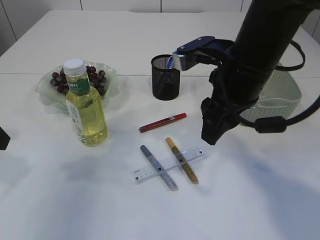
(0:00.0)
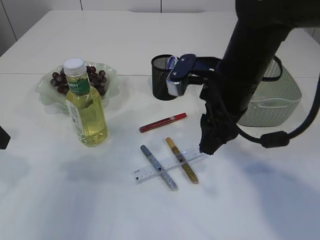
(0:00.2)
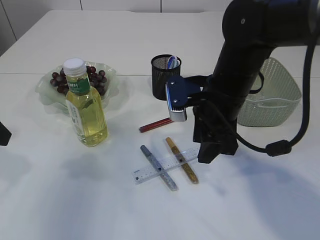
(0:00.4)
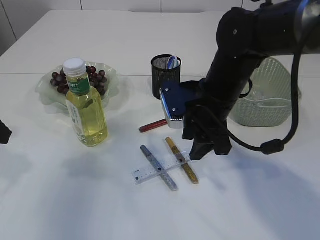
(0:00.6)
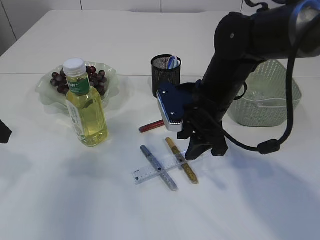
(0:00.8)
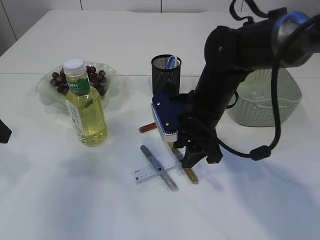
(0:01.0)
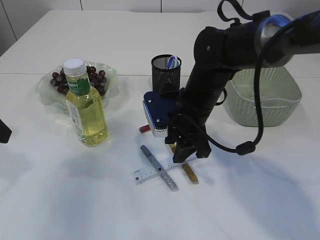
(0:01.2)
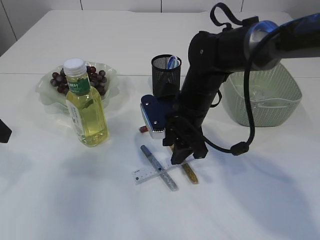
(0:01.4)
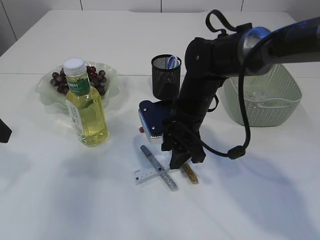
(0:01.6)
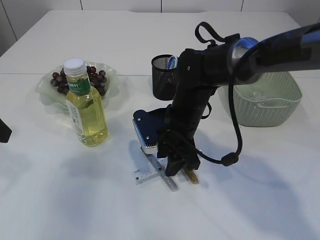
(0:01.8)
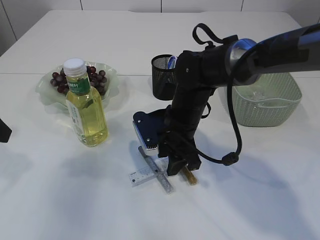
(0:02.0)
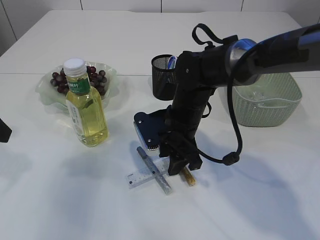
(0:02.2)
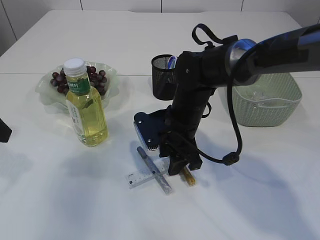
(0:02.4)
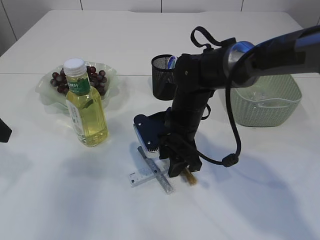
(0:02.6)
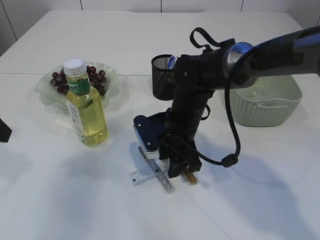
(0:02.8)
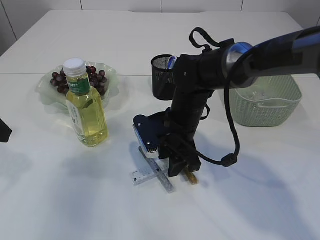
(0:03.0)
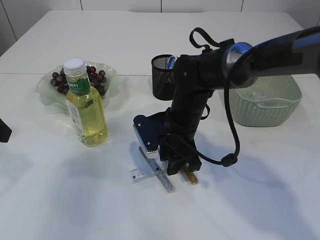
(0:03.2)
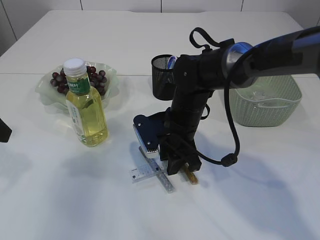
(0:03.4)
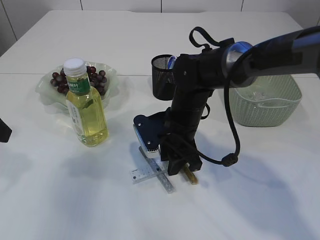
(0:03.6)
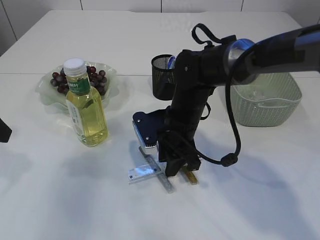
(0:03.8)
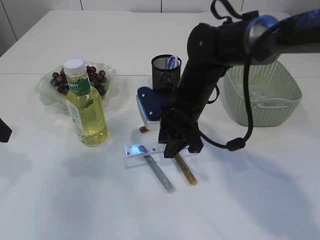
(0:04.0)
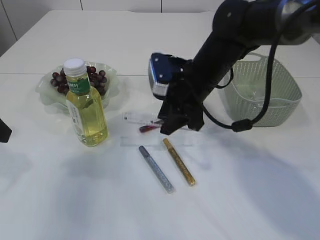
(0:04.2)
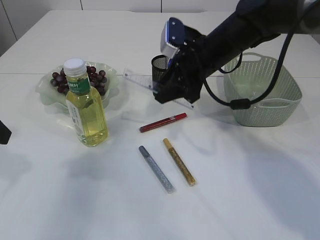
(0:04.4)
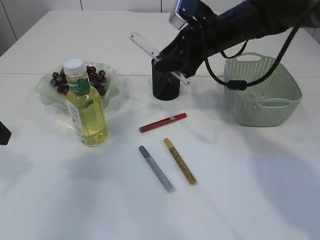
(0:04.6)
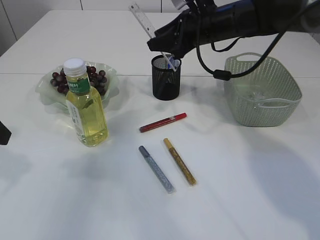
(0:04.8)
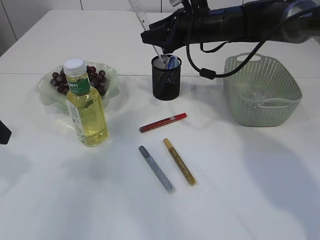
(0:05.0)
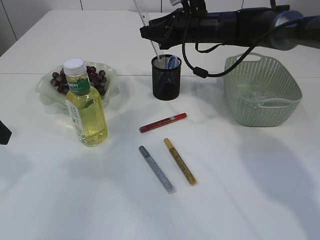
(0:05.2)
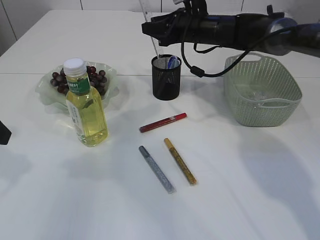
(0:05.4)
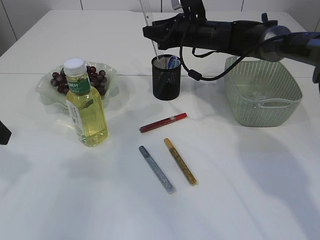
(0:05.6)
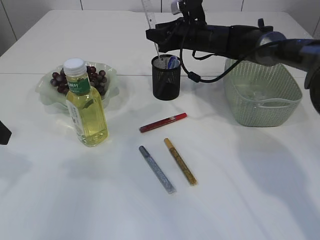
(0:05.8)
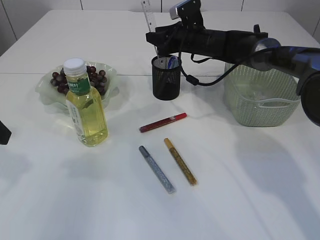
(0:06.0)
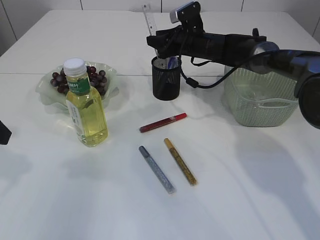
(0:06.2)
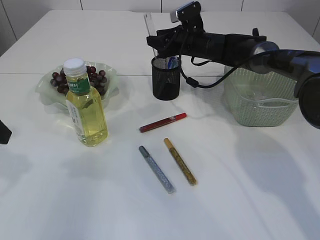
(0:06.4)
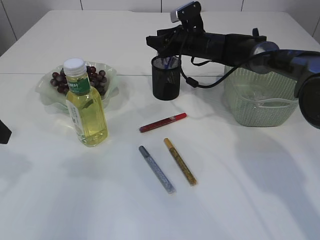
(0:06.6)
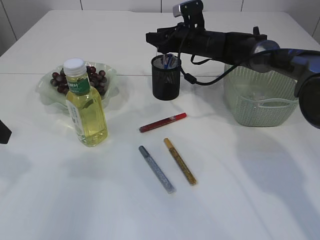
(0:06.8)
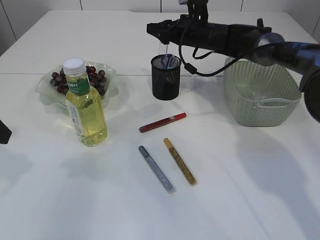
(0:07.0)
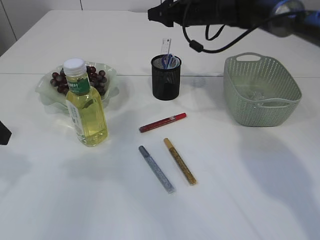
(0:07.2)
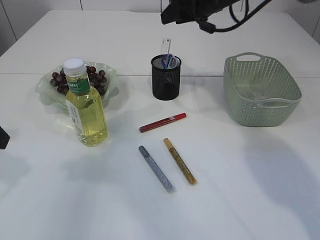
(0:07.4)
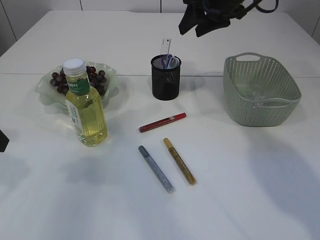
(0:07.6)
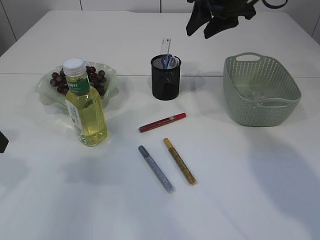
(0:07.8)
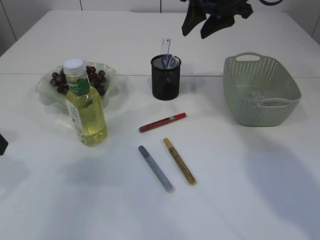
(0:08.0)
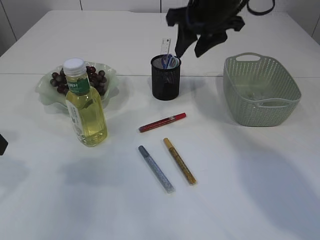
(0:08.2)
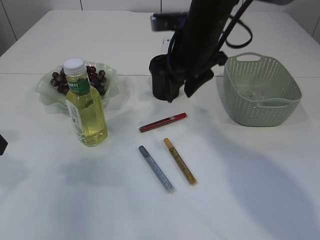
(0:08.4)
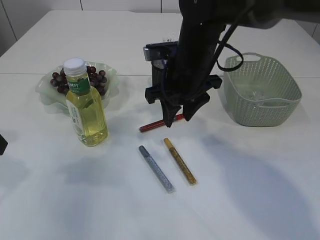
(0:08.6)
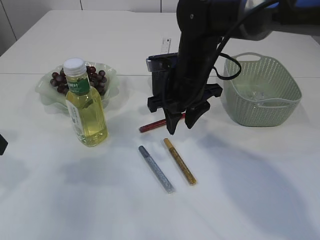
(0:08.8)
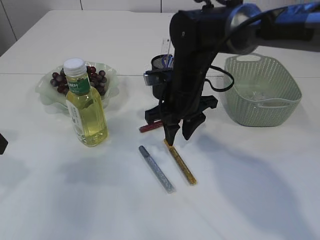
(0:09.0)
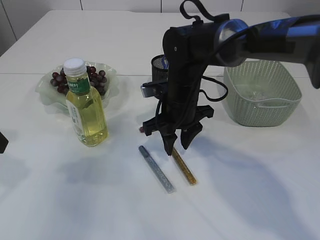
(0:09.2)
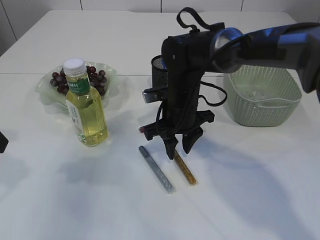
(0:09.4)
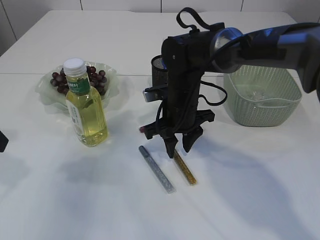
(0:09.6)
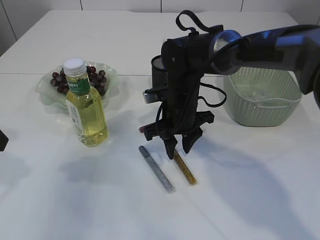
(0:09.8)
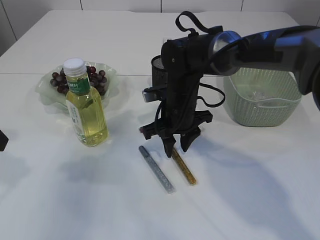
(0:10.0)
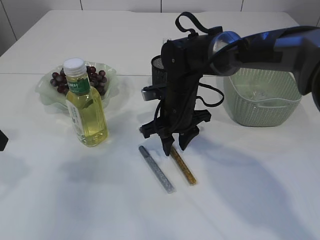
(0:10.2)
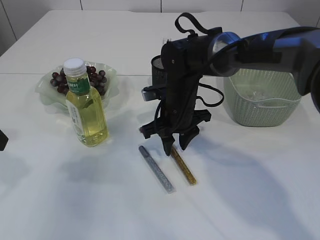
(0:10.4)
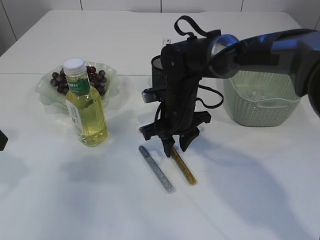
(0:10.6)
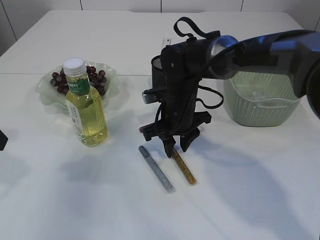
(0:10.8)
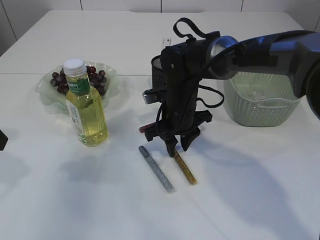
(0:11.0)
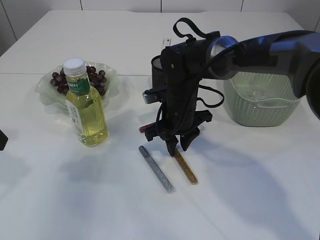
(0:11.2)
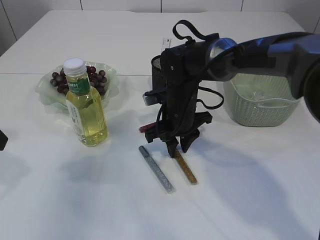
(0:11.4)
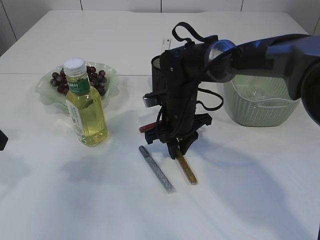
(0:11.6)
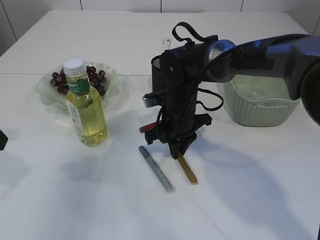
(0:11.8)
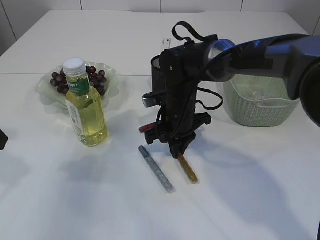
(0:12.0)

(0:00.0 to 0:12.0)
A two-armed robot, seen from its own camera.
Step, 0:00.0 - 0:04.0: pick up the ruler.
Step, 0:04.2 - 0:07.2: Place the ruler into the pen holder.
0:00.0 - 0:01.6: The right gripper moves downward, forward and to the left, approximately 15 cm.
0:01.6 - 0:03.0: The grippers stay close to where they were, moving slightly.
0:03.0 - 0:04.4: The right gripper travels upward and to the right by some 10 cm.
0:04.4 - 0:06.0: The right gripper goes some 15 cm forward.
0:06.0 - 0:07.6: The right gripper shifts about 15 cm upward and backward.
0:07.6 - 0:09.0: The right gripper travels downward, to the left and backward by approximately 20 cm.
0:09.0 - 0:10.4: The grippers stay close to where they were, moving slightly.
0:10.4 - 0:12.0: The right gripper closes up.

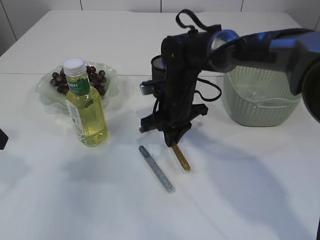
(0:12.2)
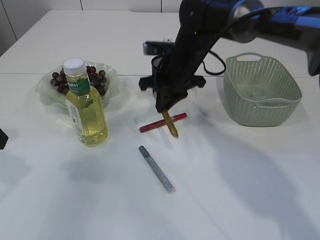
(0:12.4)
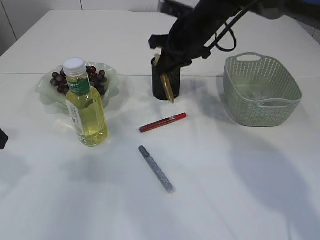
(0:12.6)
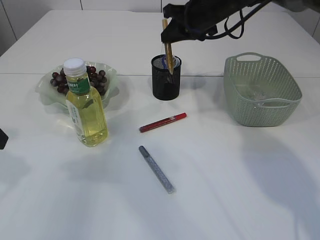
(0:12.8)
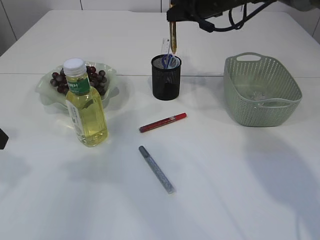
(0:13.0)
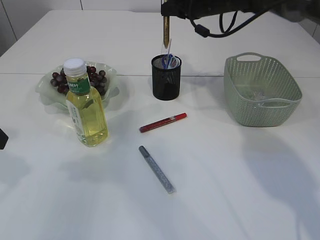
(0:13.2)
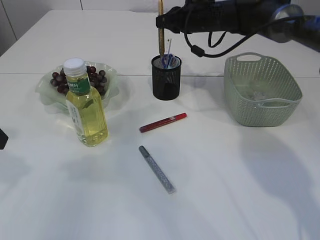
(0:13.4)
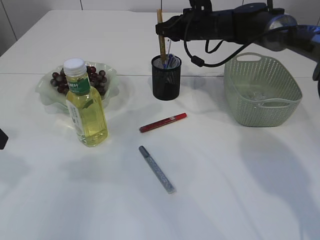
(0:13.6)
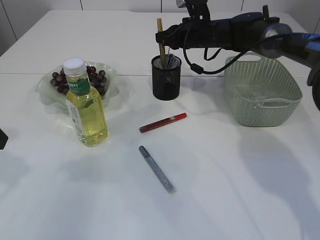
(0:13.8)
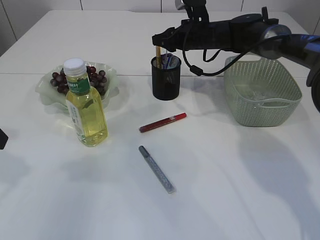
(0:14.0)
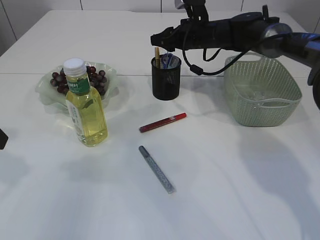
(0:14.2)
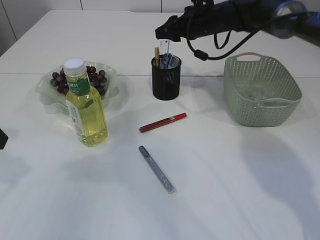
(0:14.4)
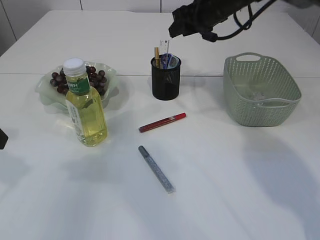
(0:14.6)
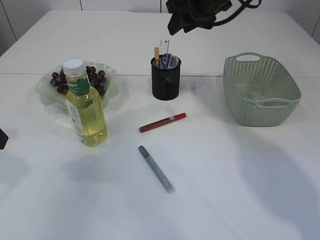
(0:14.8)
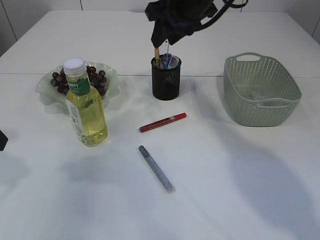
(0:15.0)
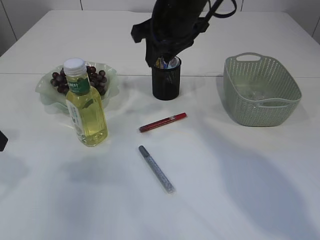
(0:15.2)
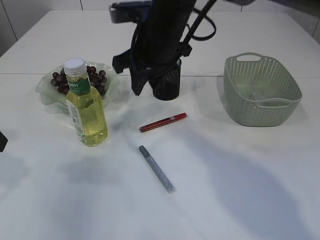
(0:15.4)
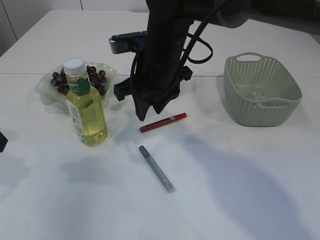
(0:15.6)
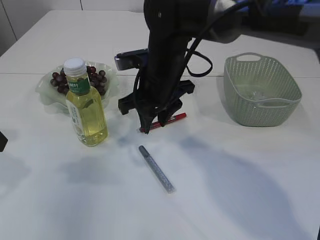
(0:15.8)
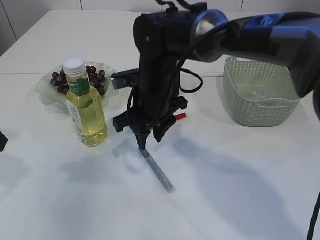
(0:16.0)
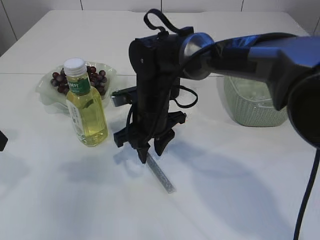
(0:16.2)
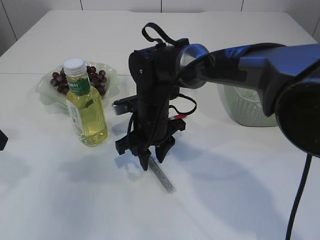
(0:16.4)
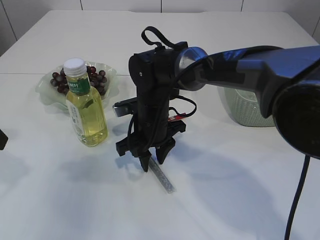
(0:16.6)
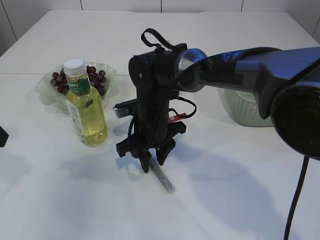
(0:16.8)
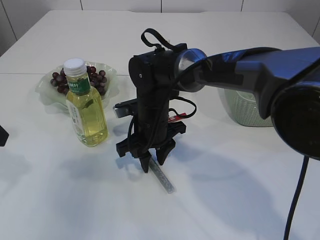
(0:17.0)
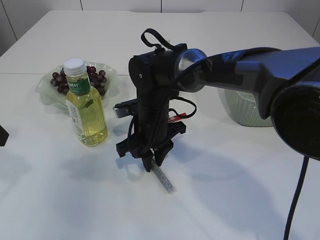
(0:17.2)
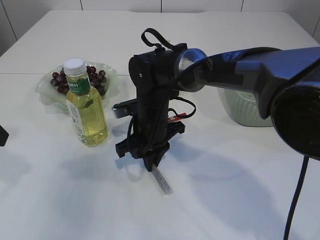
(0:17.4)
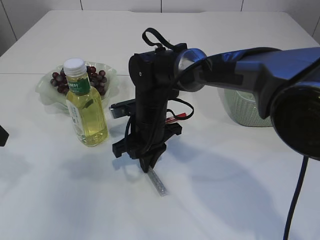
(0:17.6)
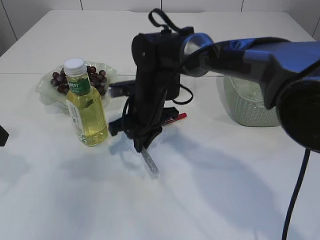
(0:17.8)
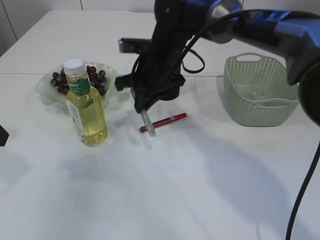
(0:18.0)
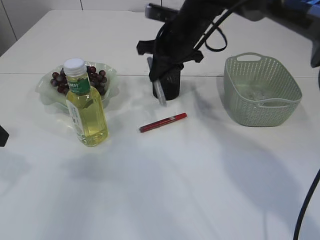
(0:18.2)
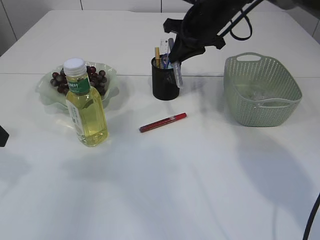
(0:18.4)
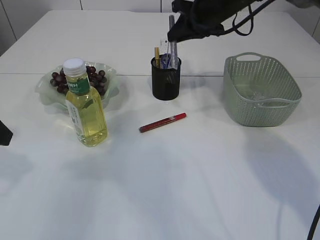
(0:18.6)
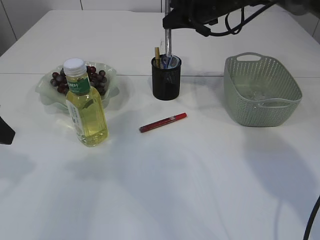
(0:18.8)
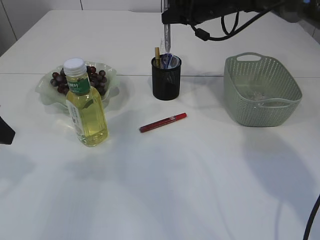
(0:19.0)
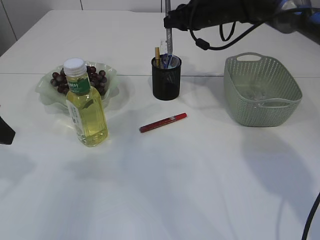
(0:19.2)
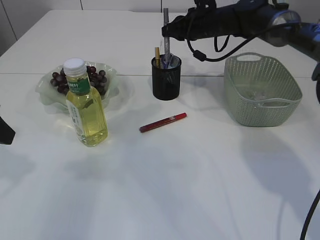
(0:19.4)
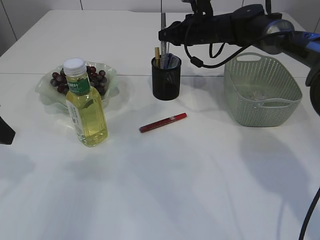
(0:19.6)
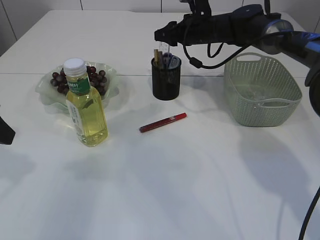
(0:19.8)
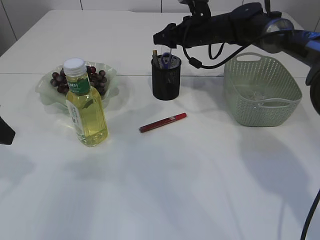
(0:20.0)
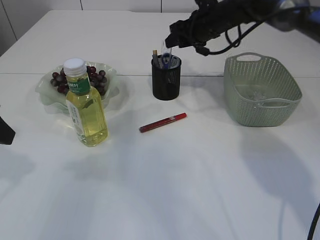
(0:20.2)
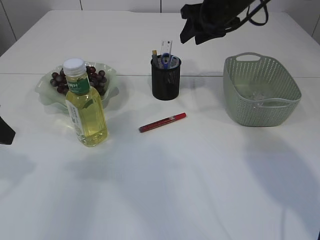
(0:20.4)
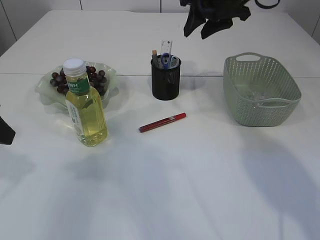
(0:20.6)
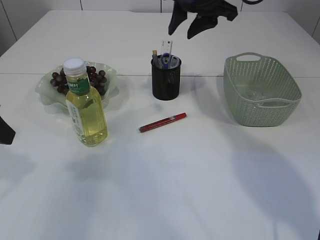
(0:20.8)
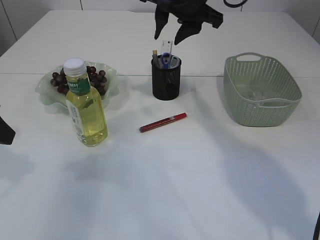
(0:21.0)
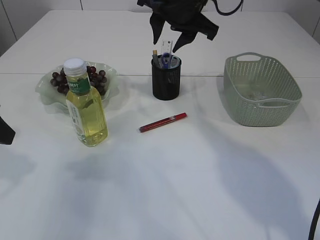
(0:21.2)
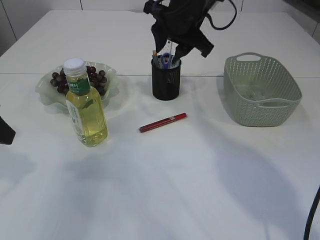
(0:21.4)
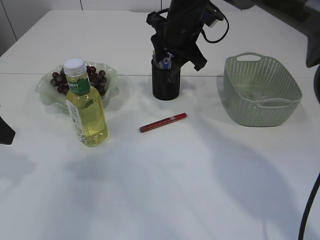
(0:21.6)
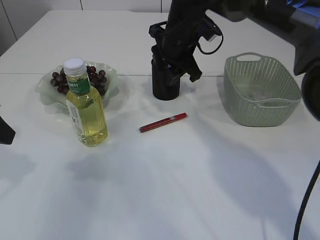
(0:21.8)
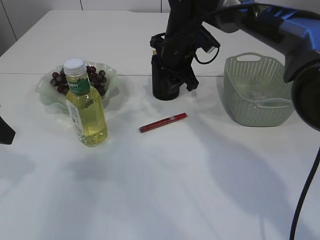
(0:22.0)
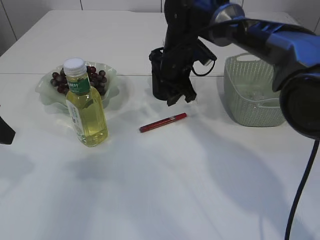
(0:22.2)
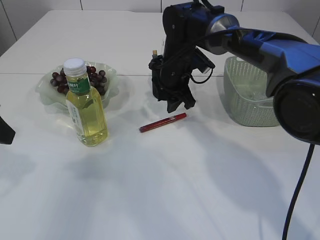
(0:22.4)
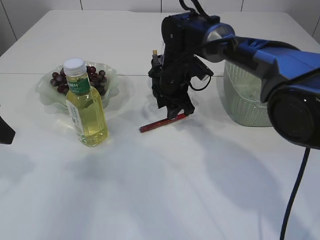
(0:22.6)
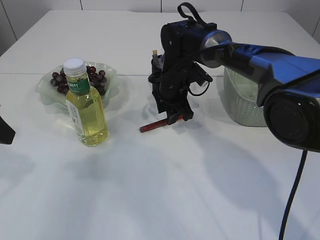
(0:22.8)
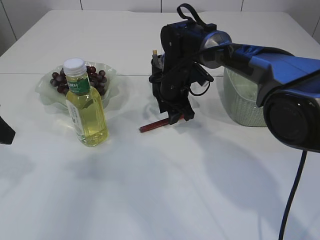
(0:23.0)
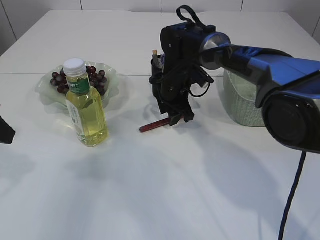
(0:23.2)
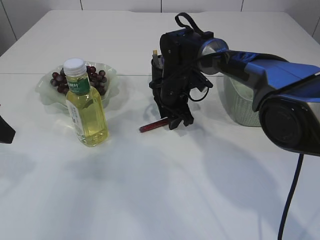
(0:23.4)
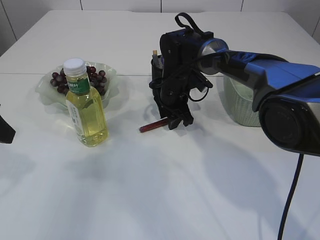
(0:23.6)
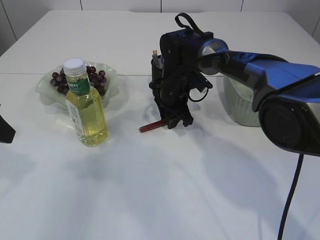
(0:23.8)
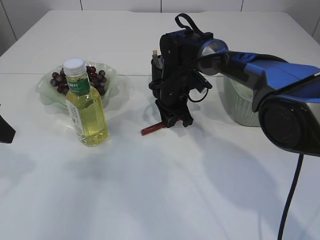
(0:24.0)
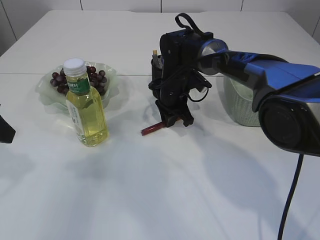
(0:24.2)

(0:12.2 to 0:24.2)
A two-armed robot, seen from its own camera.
Step, 0:12.6 - 0:14.2: place the yellow glue into the pen holder.
Step, 0:14.4 - 0:17.8: pick up the silver glue.
Step, 0:18.0 - 0:19.8: place the silver glue into the pen holder.
0:12.2 - 0:13.8: The right gripper heads forward, to the right and upward, covering about 15 cm.
0:13.8 - 0:15.2: The right gripper goes some 20 cm backward, upward and to the left, and opens its fingers.
0:15.2 - 0:16.6: The right gripper goes roughly 20 cm downward.
0:16.6 - 0:18.2: The right gripper moves upward, forward and to the right, about 15 cm, and closes up.
0:18.2 - 0:19.8: The right gripper shifts about 10 cm forward and to the right, and opens.
0:19.8 - 0:21.2: The right gripper shifts roughly 15 cm backward, upward and to the left.
0:21.2 - 0:22.6: The right gripper shifts some 15 cm downward.
0:22.6 - 0:24.2: The right gripper closes up.
